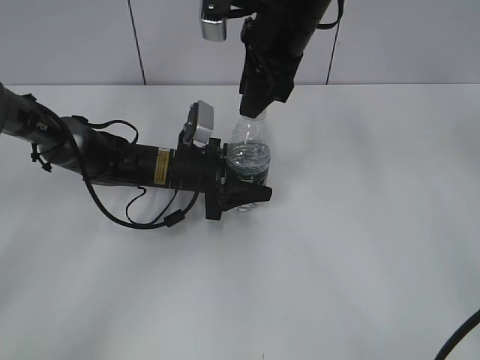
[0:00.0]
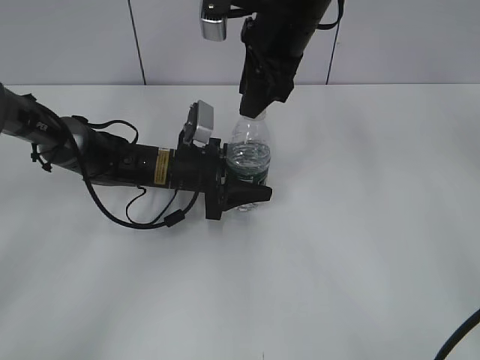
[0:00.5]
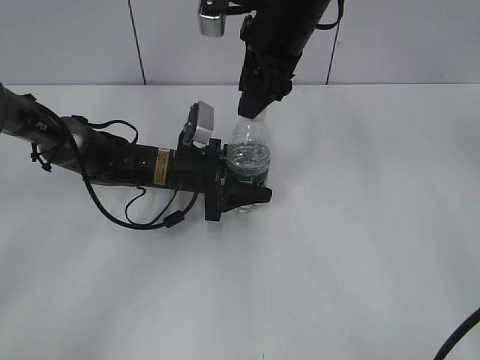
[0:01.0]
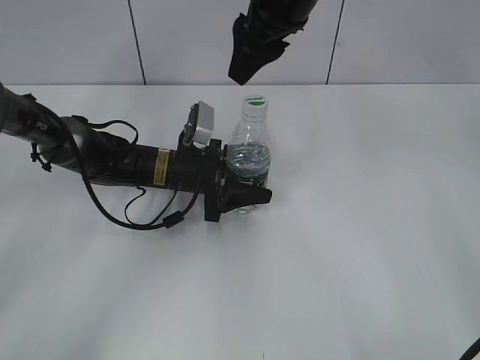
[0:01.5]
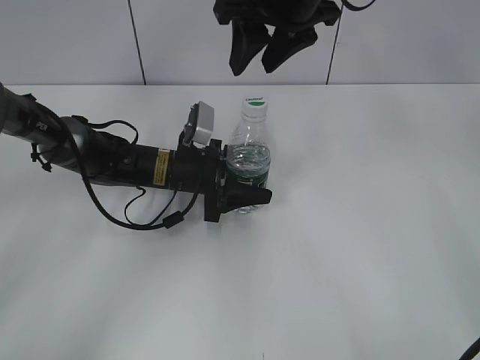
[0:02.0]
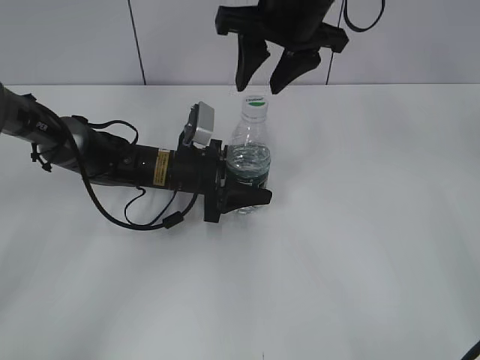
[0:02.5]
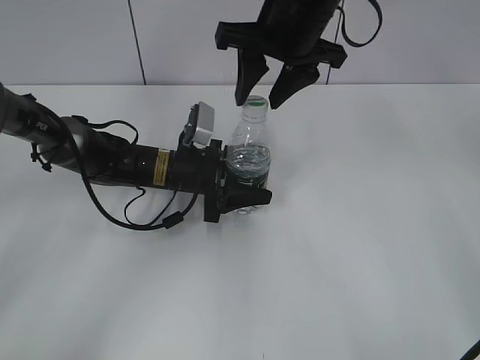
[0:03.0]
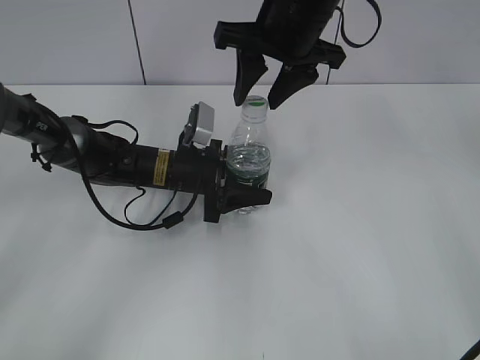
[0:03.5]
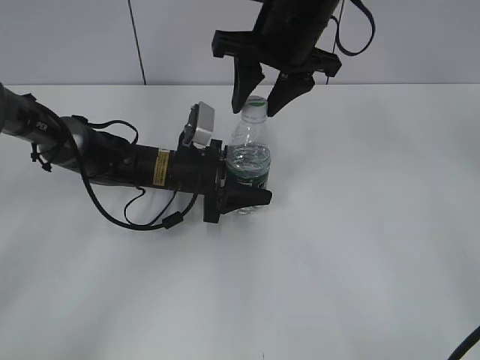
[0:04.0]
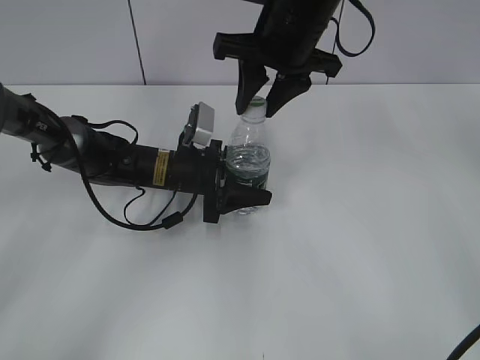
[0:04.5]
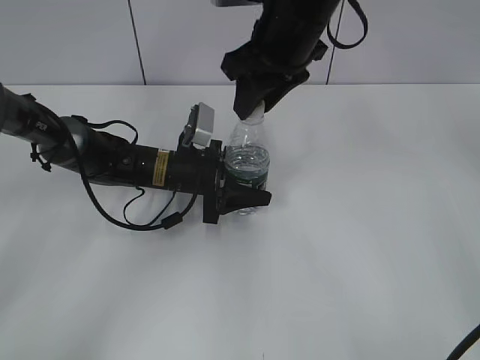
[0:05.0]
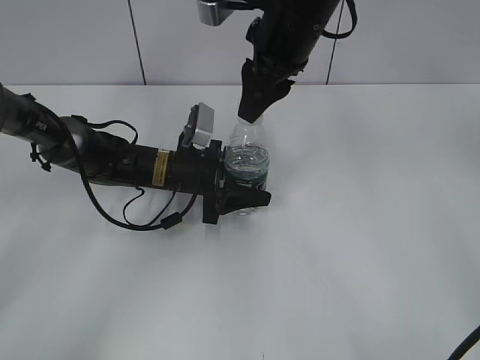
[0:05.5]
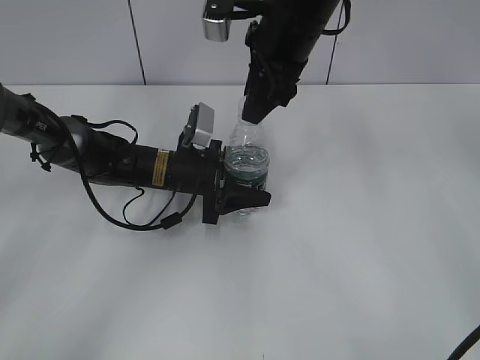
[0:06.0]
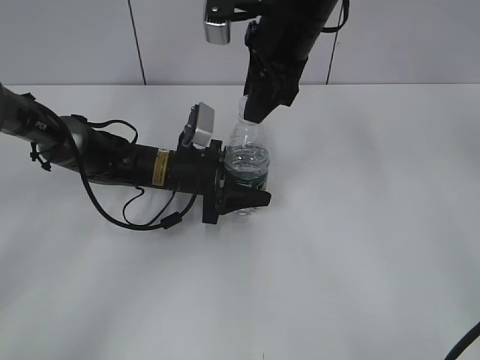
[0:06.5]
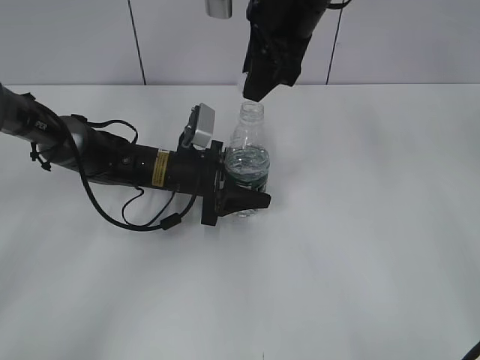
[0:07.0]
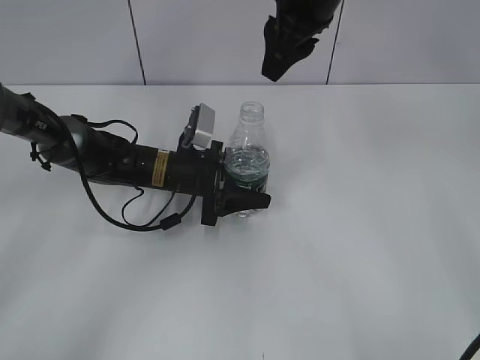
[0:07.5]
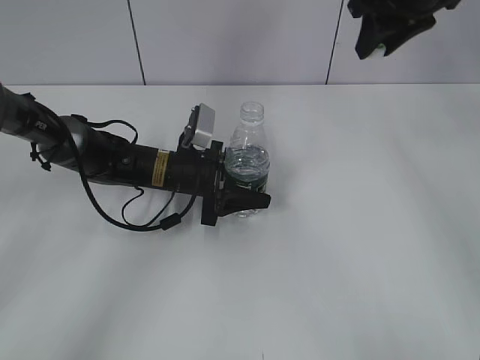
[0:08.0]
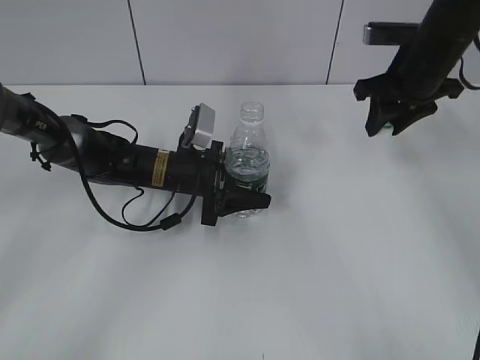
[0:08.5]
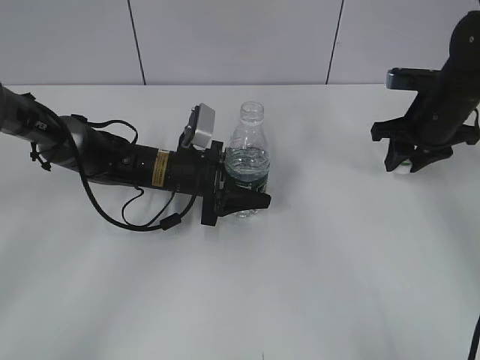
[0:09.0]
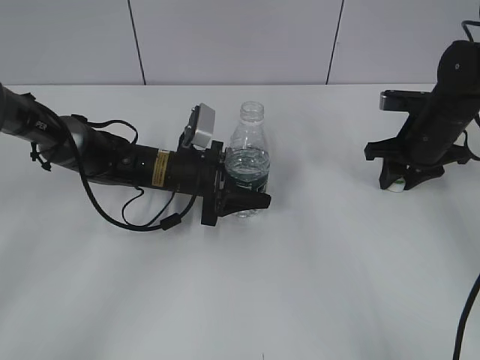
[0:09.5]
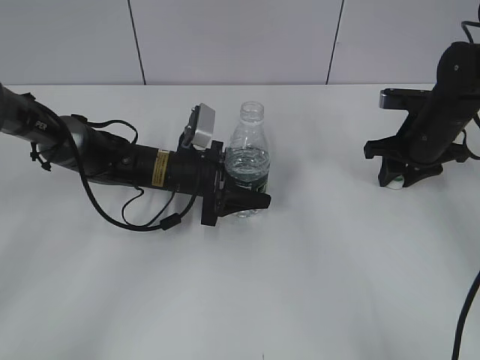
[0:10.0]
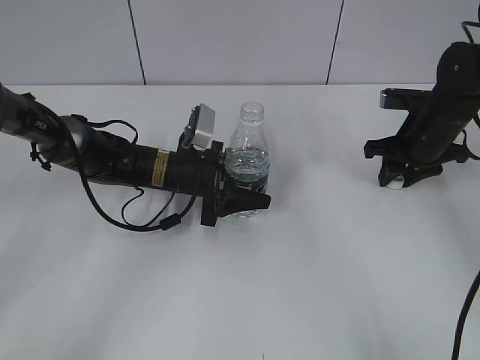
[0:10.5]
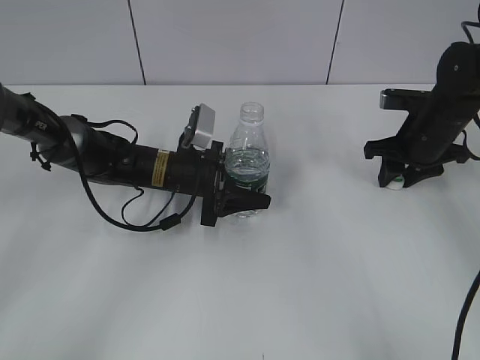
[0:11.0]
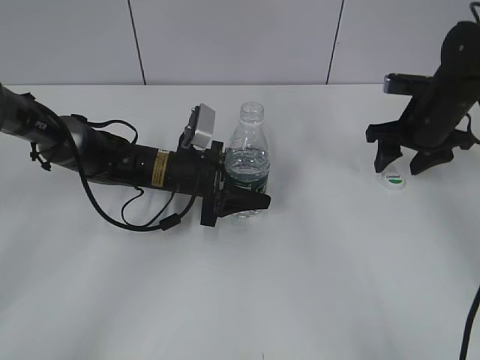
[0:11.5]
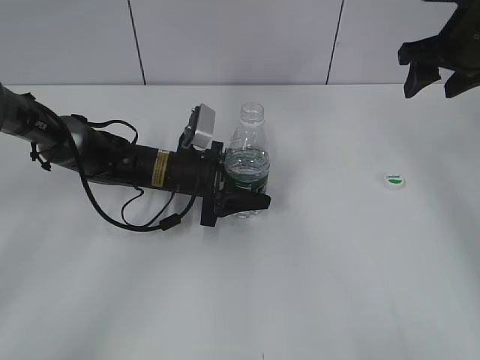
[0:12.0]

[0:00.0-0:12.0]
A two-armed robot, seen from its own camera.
Step, 0:00.0 to 0:06.5: Unscrew the bottle cap with the right gripper while holding the bottle with the left gripper.
Step, 0:07.5 to 0:11.0: Place the bottle cap on the table with the right gripper.
0:00.0 to 0:02.0: The right gripper opens.
0:02.0 to 0:04.0: There are only small adjustments of the grippers.
0:04.0 to 0:06.0: The right gripper closes.
0:06.0 to 0:08.0: The right gripper moves to the right and forward, roughly 15 cm.
0:08.0 to 0:10.0: The right gripper is displaced downward by about 20 cm.
0:10.0 to 0:12.0: The right gripper is displaced upward by some 15 cm, and opens up.

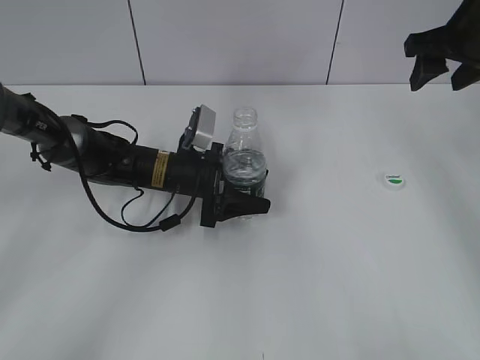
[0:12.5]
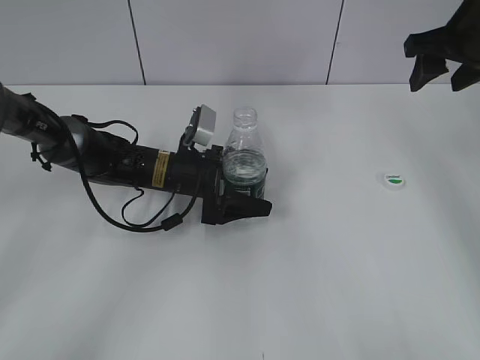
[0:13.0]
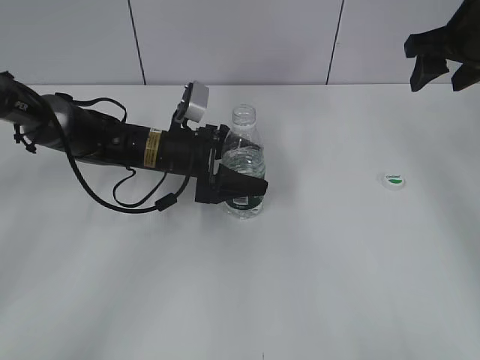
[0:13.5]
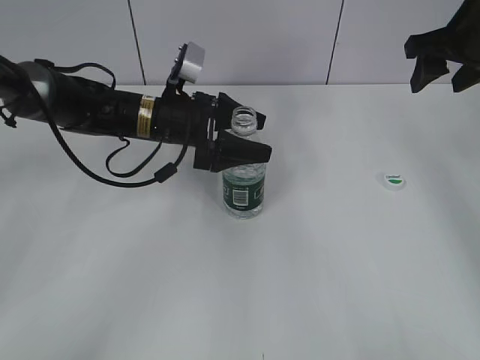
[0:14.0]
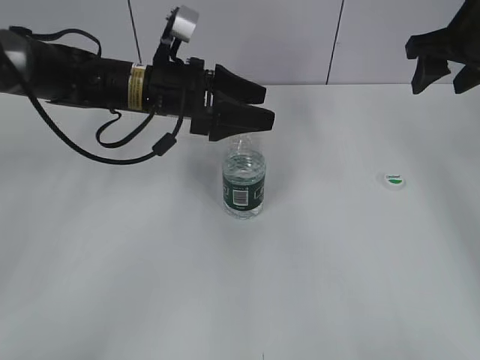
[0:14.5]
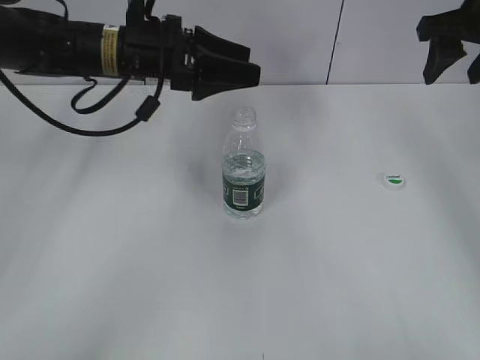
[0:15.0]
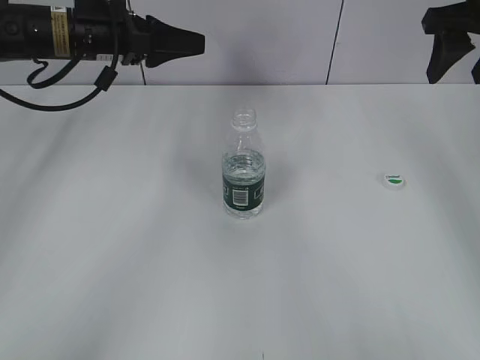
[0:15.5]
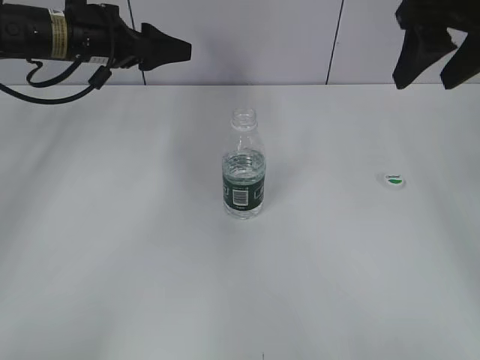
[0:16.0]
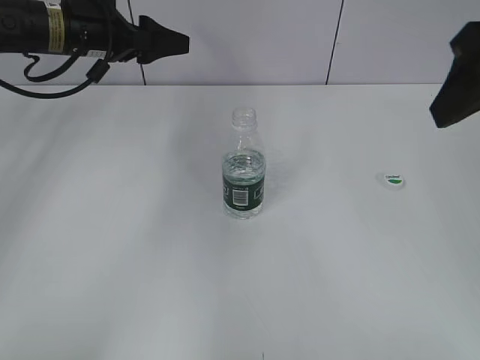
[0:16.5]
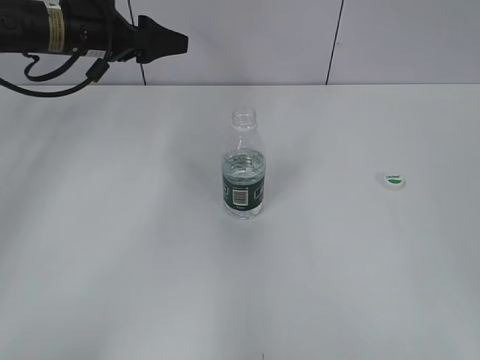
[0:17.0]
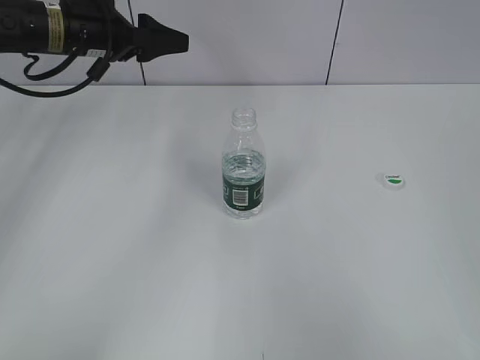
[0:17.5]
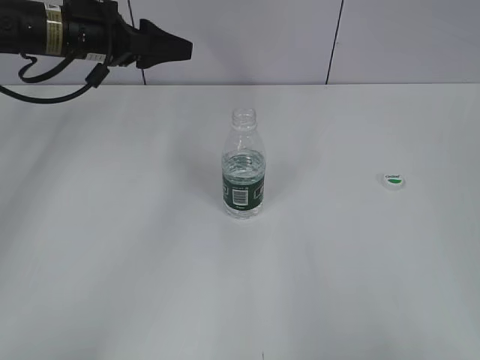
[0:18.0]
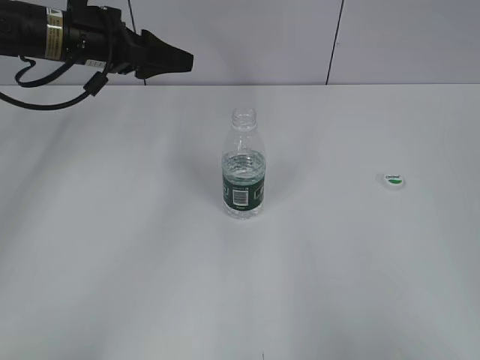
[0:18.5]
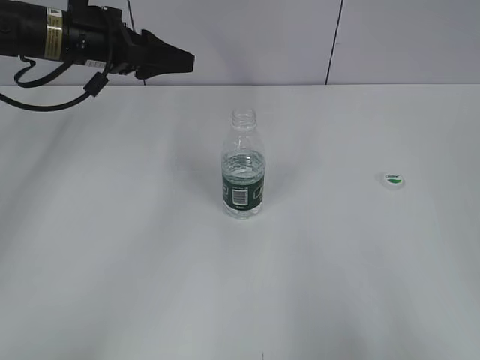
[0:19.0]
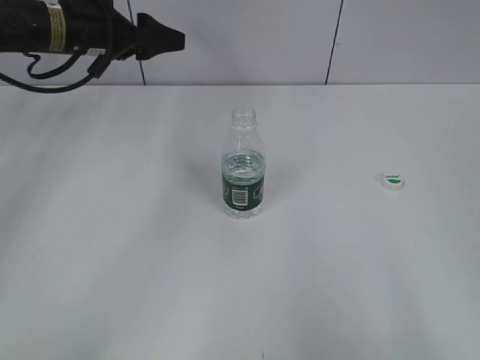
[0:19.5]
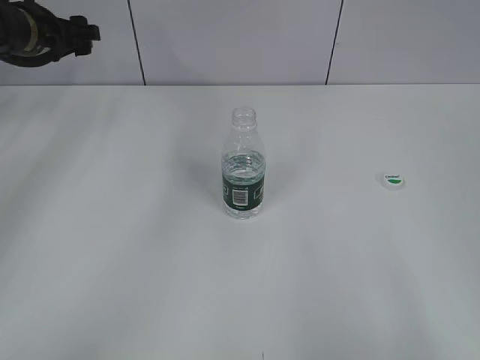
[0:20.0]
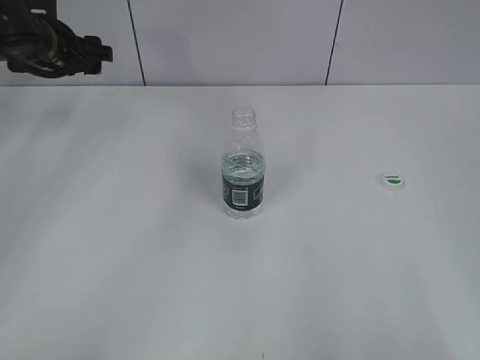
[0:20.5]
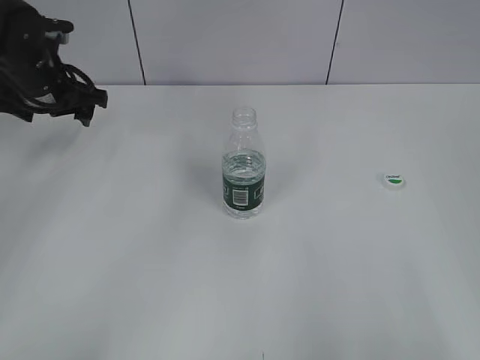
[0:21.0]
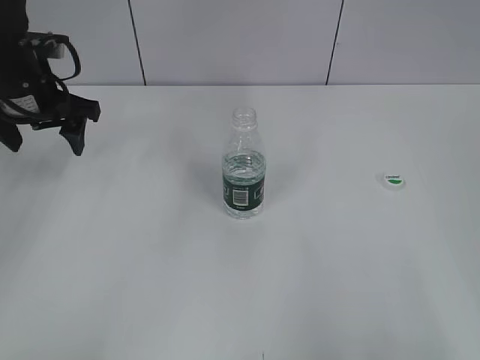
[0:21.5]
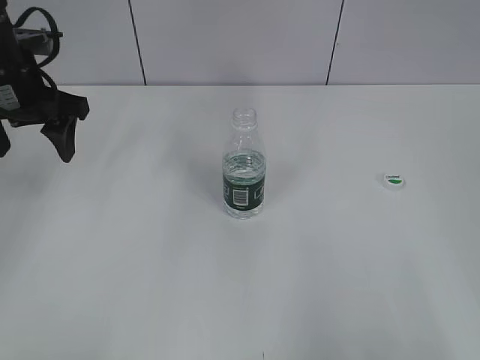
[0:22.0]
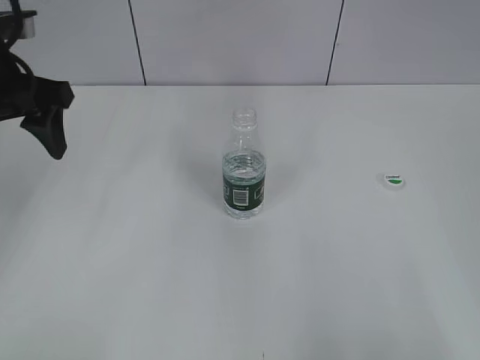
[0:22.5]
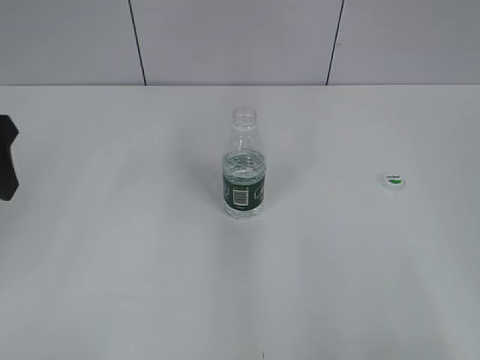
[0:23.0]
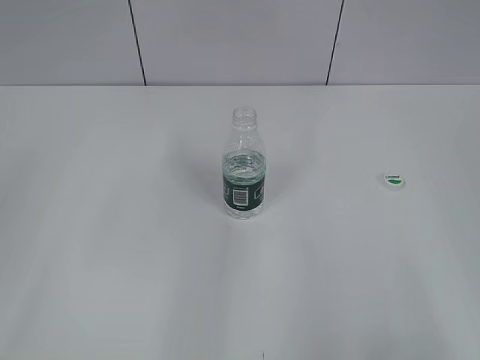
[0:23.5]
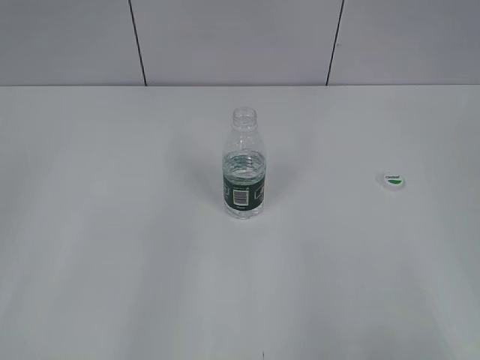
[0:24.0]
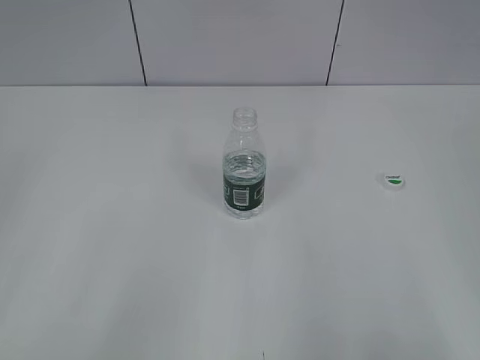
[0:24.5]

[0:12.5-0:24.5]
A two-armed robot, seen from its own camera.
Step, 0:12.5 to 0:14.0: Place the bottle on the table with the left gripper.
0:12.5 to 0:14.5: The left gripper goes some 15 cm upward.
0:14.5 to 0:16.5: The left gripper shifts about 10 cm to the left and upward; the right gripper goes roughly 20 cm backward and upward.
0:16.5 to 0:18.5: The right gripper heads backward and to the right, covering roughly 25 cm.
0:18.5 to 0:20.5: The left gripper travels to the left by approximately 5 cm.
0:20.5 to 0:22.5: The left gripper moves backward and upward, roughly 15 cm.
0:22.5 to 0:24.5: The left gripper moves backward, some 30 cm.
